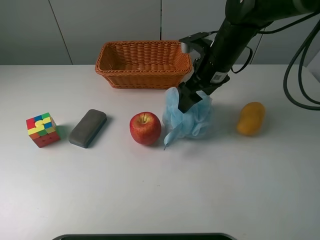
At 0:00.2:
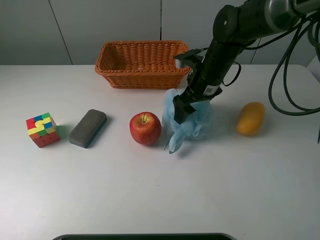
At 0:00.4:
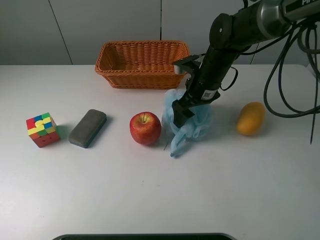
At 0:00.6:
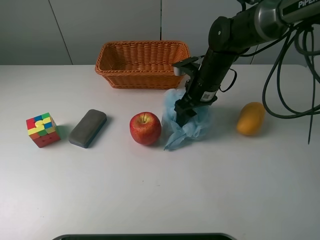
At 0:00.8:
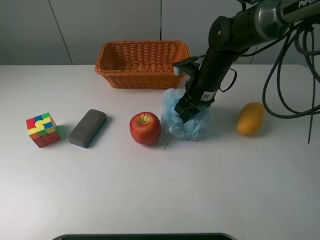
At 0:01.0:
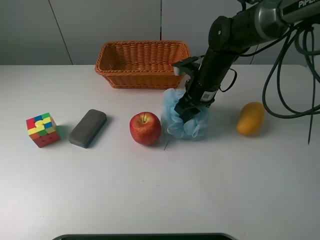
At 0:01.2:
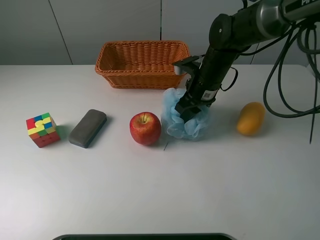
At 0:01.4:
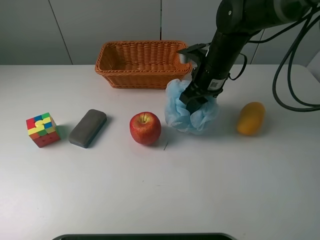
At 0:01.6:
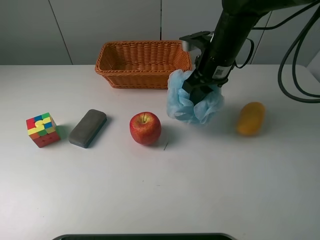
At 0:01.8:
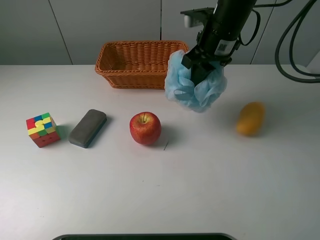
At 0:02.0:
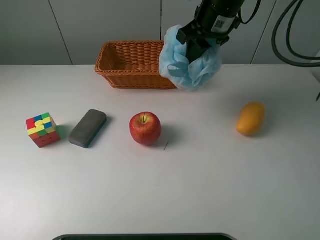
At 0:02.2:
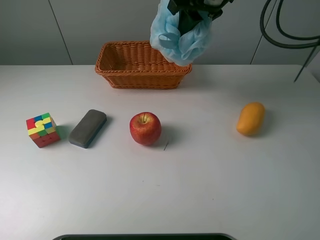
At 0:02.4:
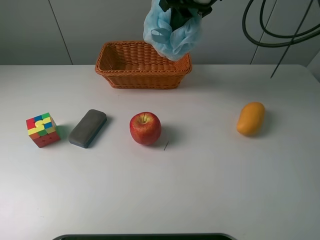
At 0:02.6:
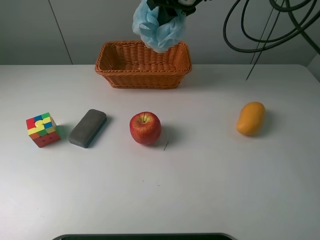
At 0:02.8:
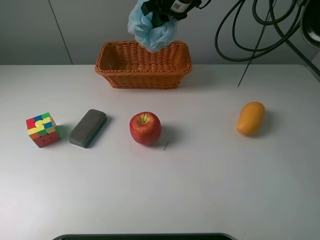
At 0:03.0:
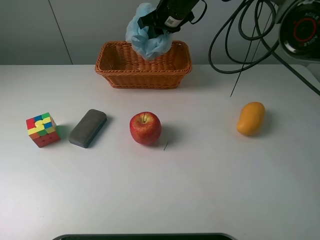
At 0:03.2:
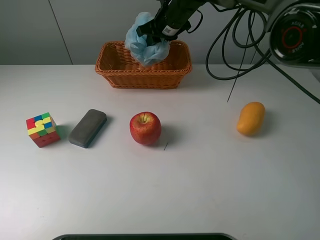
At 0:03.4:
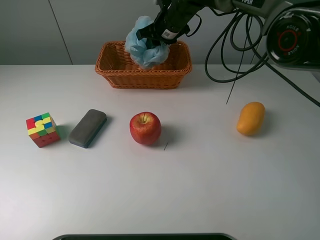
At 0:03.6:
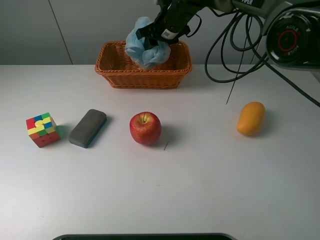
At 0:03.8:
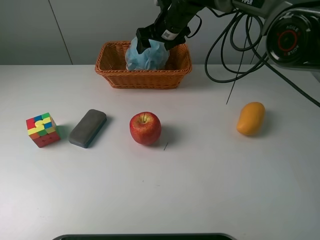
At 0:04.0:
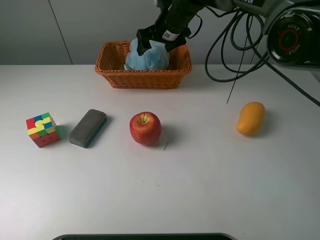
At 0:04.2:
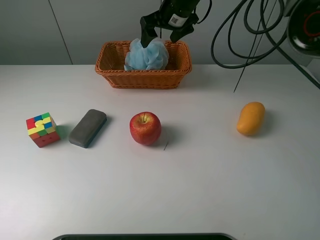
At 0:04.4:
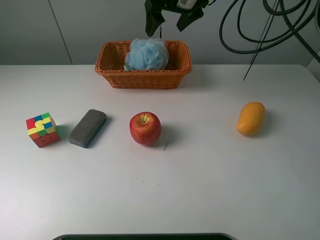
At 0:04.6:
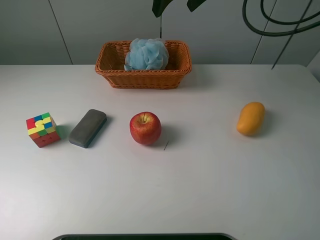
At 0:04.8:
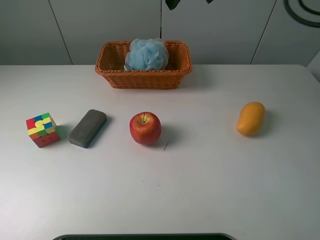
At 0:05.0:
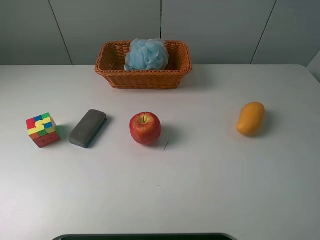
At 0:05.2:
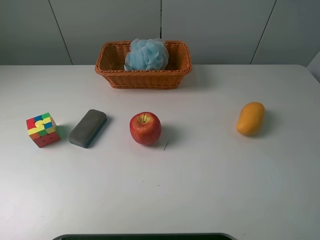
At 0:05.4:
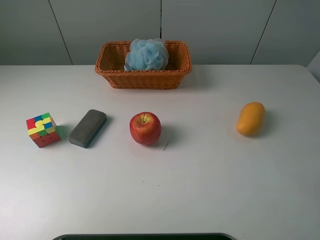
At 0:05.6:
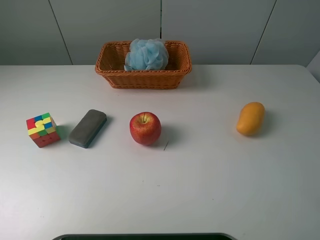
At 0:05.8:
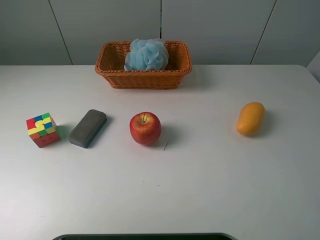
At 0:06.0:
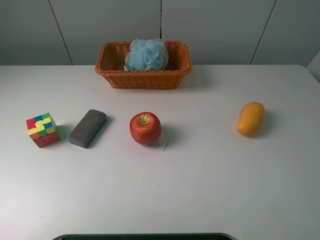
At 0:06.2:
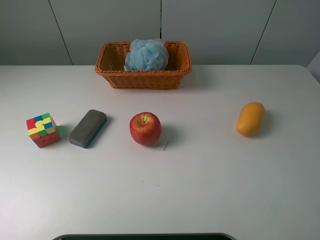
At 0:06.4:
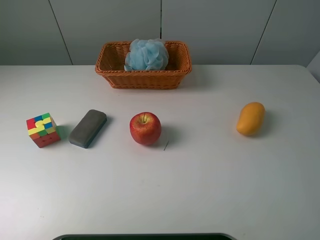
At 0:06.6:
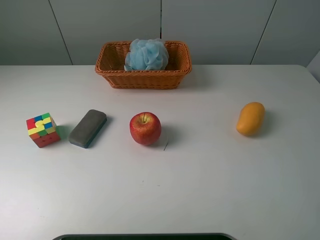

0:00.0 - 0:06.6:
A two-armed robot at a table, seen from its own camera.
Task of the whole recording: use a picker to grab the item closest to the apple and place it in the basket.
Step, 0:01.2 - 0:04.2: Place the shower sphere into the basket with the right gripper.
0:00.0 - 0:01.6: The right gripper goes downward and returns, approximately 5 cm each way, and closes its fingers.
0:01.6 - 0:03.2: The right gripper travels forward and to the left by some 15 cm.
0:03.2 - 0:05.0: The right gripper is displaced backward, upward and to the right by about 35 cm, and opens up.
